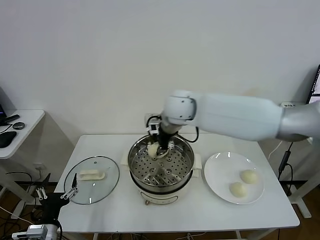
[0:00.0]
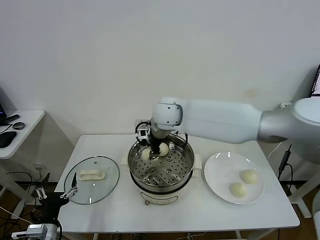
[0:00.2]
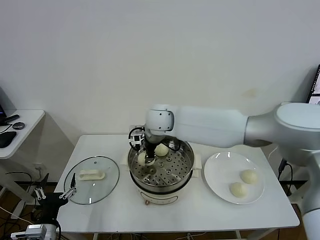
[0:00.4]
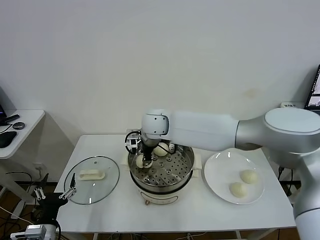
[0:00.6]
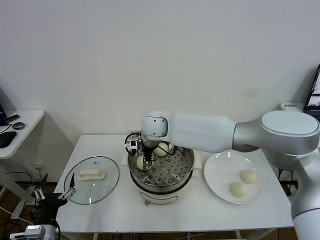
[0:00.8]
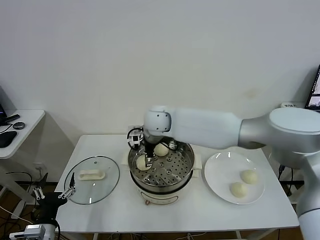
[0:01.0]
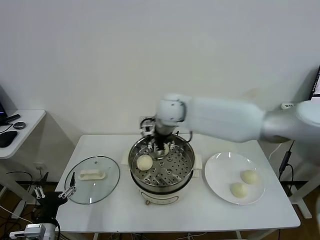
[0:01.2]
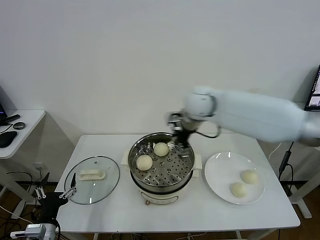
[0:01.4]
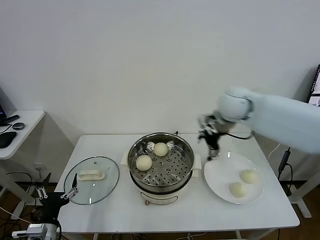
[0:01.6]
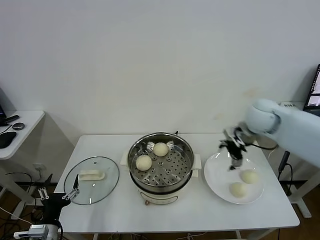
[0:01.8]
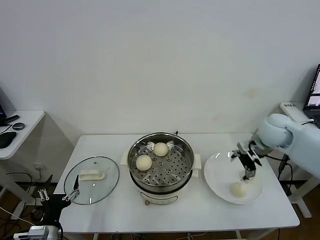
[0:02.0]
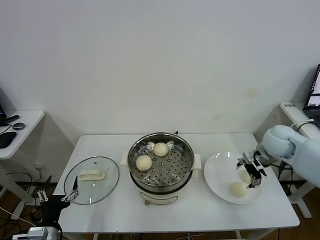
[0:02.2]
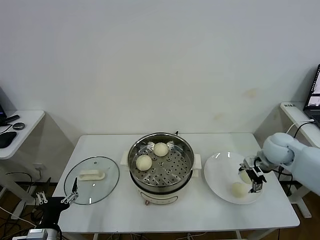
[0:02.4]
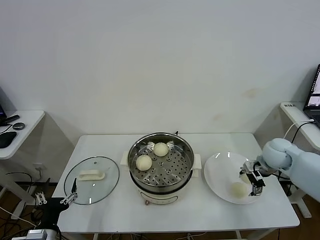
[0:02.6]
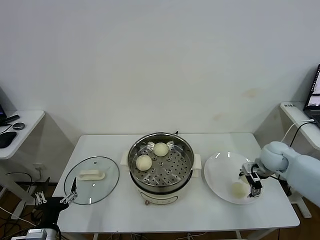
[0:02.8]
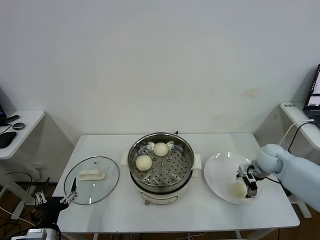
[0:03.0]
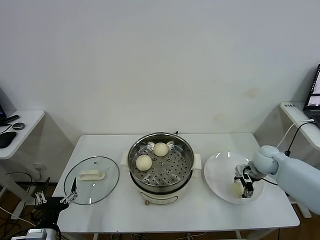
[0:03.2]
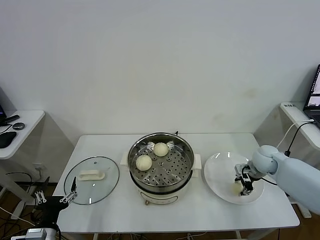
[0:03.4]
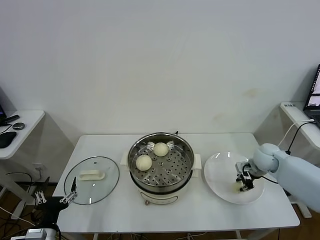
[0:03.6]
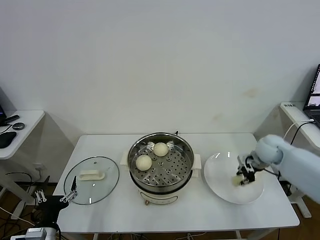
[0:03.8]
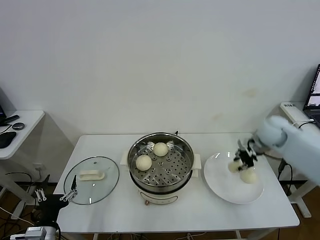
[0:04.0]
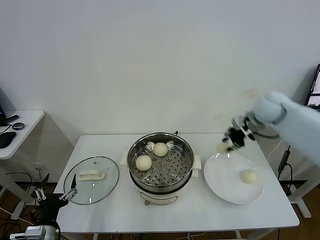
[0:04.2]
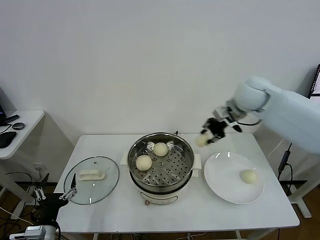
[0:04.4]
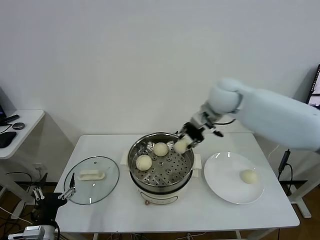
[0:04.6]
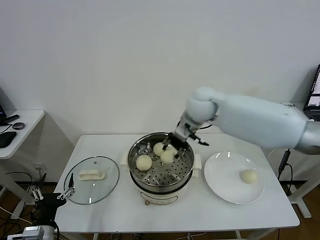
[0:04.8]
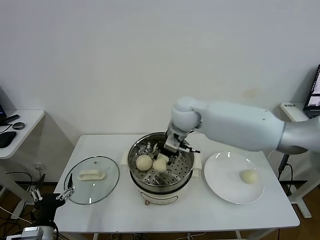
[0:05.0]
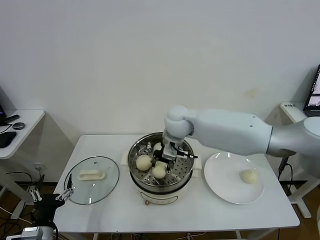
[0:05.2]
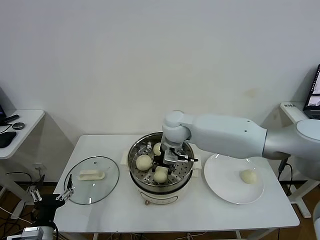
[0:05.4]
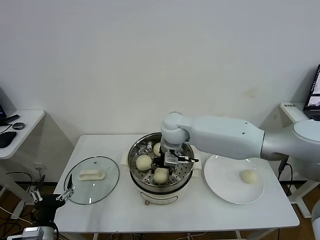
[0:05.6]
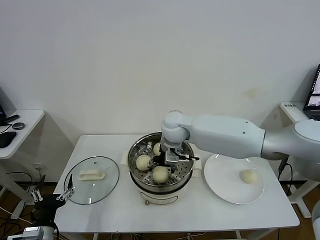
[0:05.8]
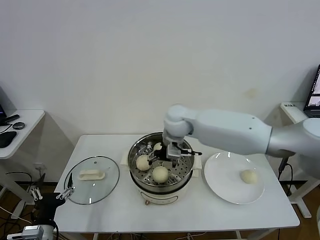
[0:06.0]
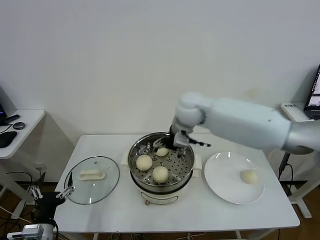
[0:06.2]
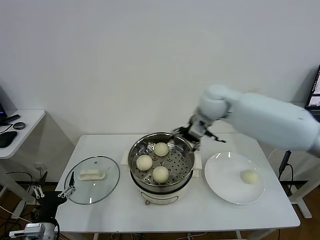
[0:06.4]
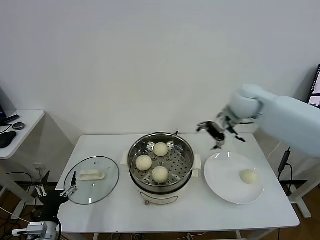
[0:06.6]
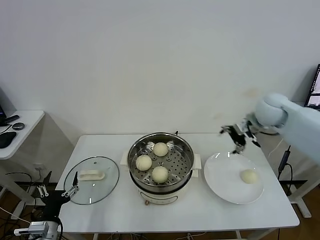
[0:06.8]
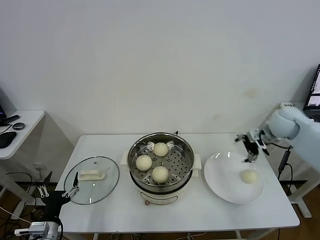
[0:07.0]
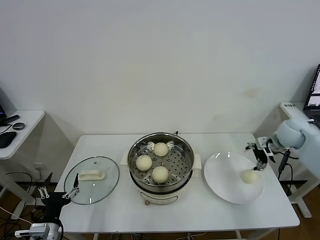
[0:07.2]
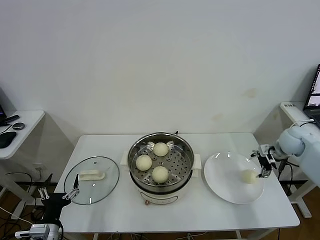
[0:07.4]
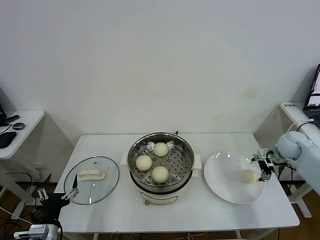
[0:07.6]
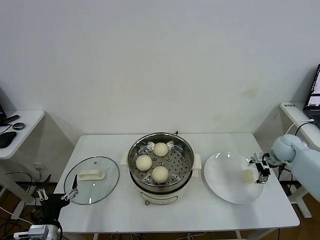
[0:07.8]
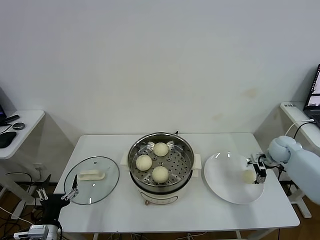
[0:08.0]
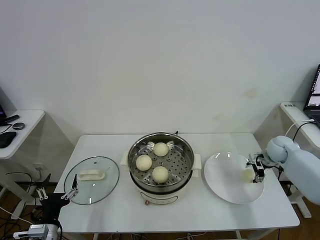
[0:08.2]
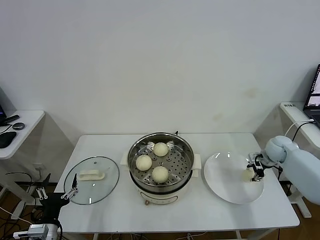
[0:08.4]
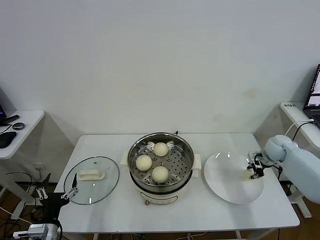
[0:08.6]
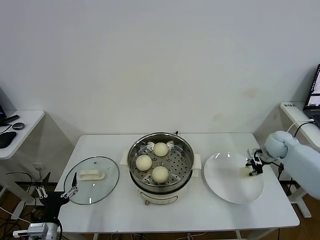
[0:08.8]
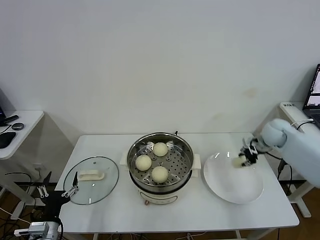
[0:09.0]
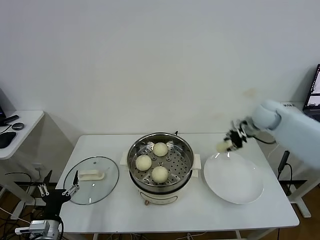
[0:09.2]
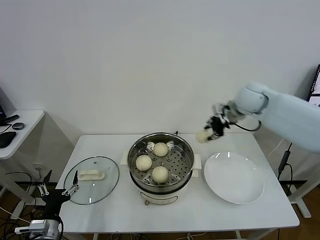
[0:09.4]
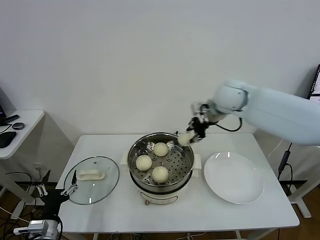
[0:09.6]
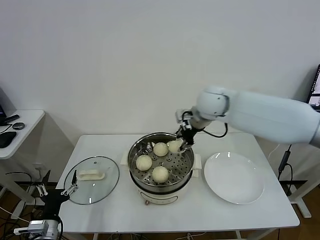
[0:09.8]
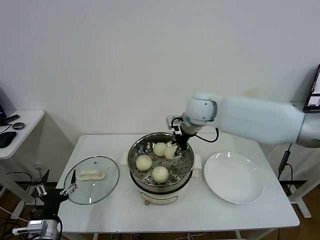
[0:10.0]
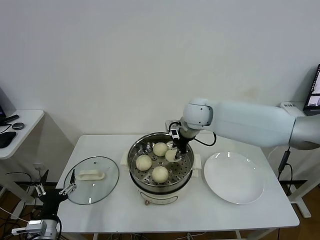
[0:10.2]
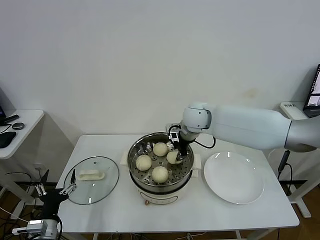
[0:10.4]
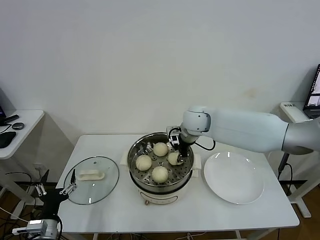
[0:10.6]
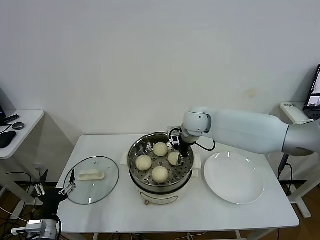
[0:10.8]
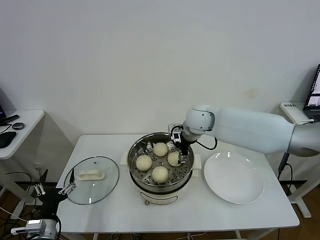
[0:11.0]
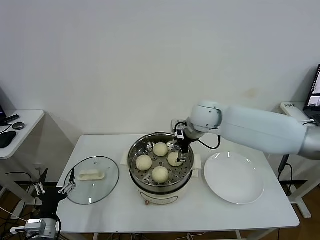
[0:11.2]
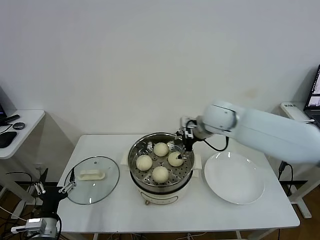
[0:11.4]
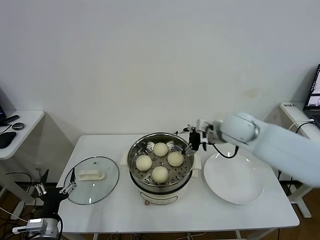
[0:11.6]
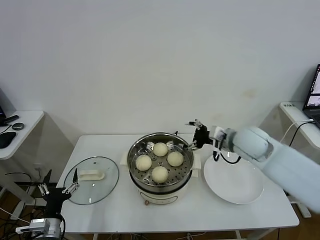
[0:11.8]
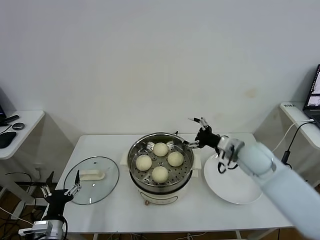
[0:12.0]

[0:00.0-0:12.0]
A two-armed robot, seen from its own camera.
Task of the whole recording: take steamed baozi put them in steamer.
Step, 0:01.2 to 0:03.4: Grasp the baozi in the plate with right gripper.
Step, 0:03.6 to 0:06.0: Place the baozi on the steamer with right gripper.
Step, 0:06.2 to 0:08.4: Grasp the baozi in the plate with right gripper.
Step, 0:08.6 to 0:11.0: Place the baozi on the steamer with right gripper.
0:00.0 to 0:01.6: The right gripper moves to the right, about 15 cm, and opens up.
0:01.6 to 0:03.0: The right gripper is displaced downward and to the right by approximately 25 cm.
0:03.0 to 0:04.4: The right gripper goes roughly 25 cm upward and to the left, and closes its fingers.
0:04.4 to 0:06.0: The right gripper travels to the left by some 20 cm, and opens.
0:06.0 to 0:07.6: The right gripper heads to the right, covering some 40 cm.
0:07.6 to 0:09.0: The right gripper travels to the left by about 5 cm, and closes.
0:09.0 to 0:10.4: The right gripper is displaced to the left by about 30 cm.
0:10.4 to 0:12.0: The right gripper shifts about 20 cm to the right and backward, and opens up.

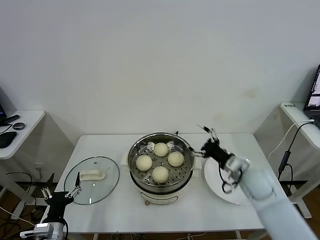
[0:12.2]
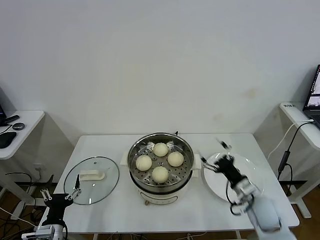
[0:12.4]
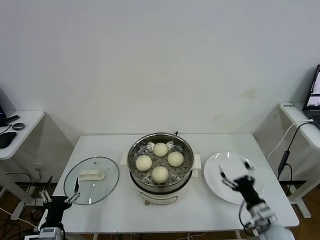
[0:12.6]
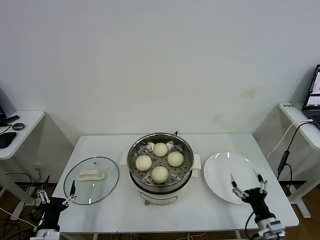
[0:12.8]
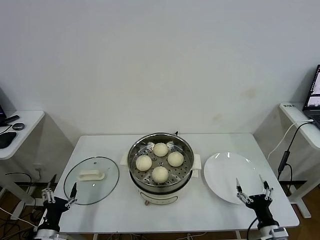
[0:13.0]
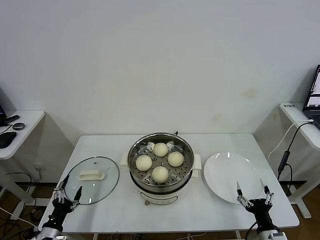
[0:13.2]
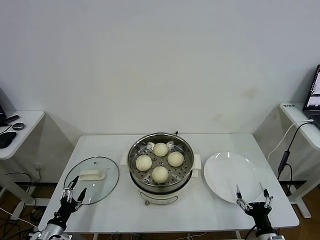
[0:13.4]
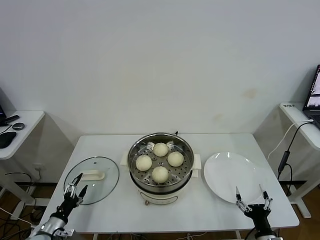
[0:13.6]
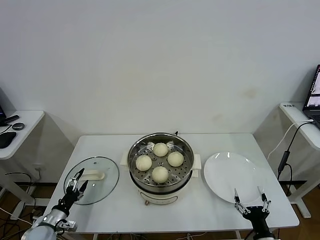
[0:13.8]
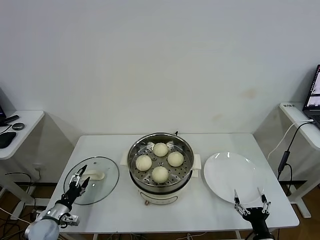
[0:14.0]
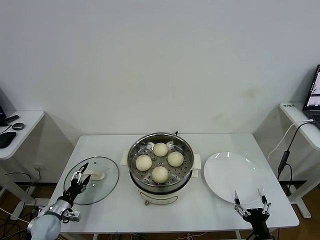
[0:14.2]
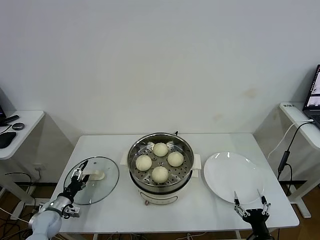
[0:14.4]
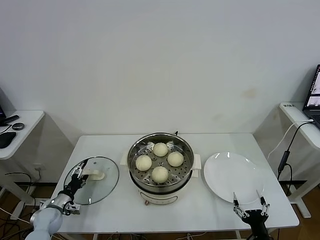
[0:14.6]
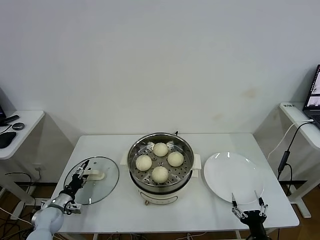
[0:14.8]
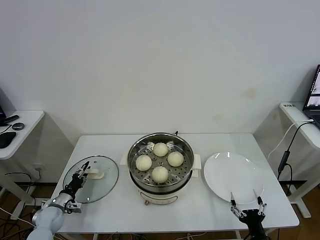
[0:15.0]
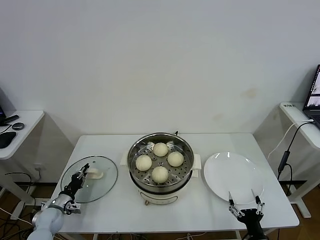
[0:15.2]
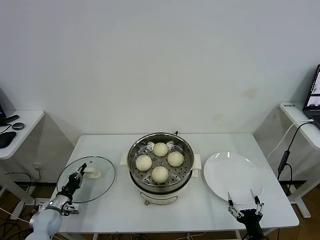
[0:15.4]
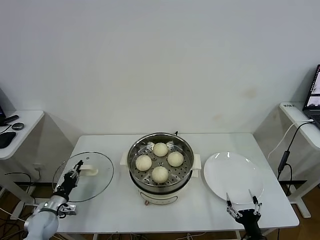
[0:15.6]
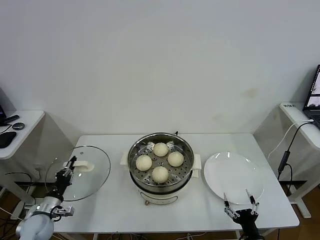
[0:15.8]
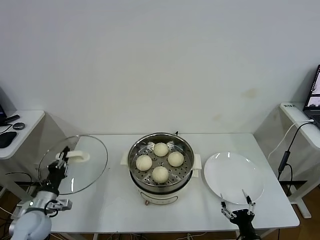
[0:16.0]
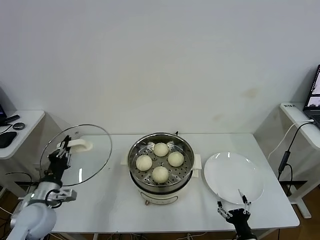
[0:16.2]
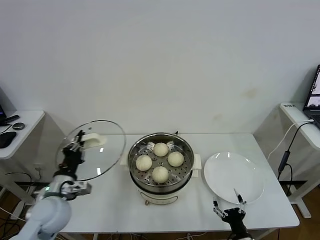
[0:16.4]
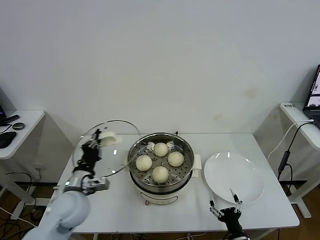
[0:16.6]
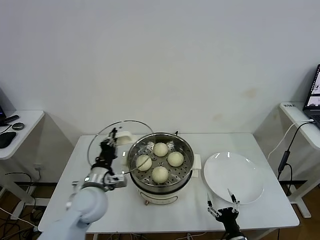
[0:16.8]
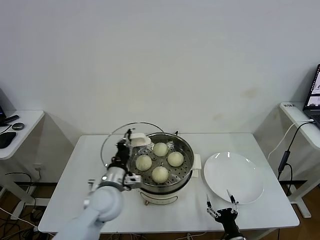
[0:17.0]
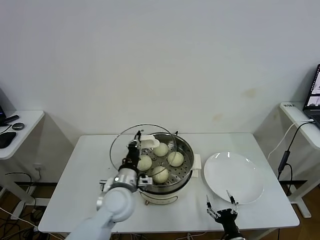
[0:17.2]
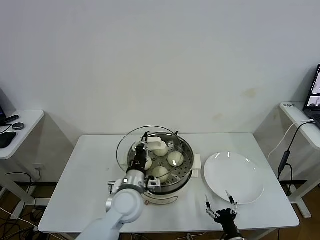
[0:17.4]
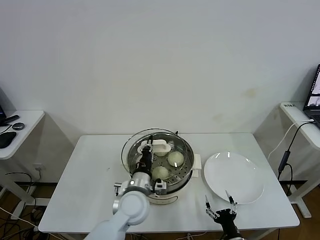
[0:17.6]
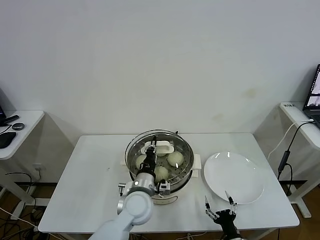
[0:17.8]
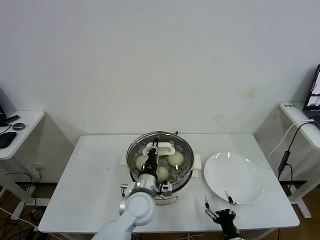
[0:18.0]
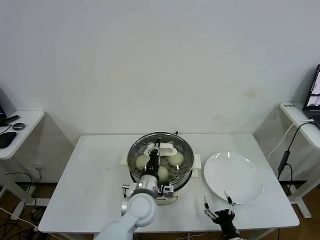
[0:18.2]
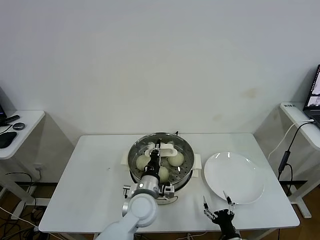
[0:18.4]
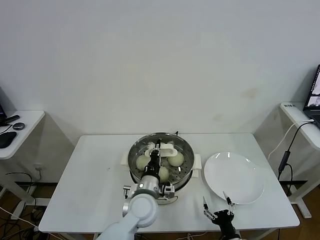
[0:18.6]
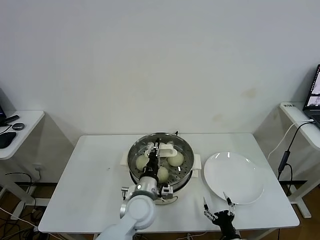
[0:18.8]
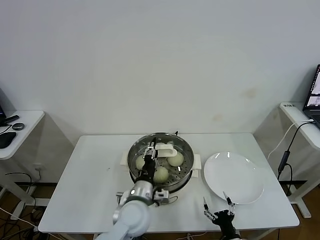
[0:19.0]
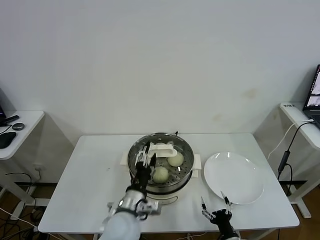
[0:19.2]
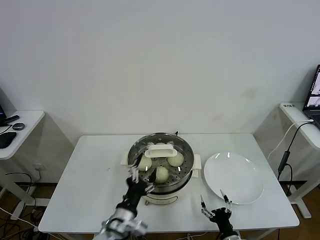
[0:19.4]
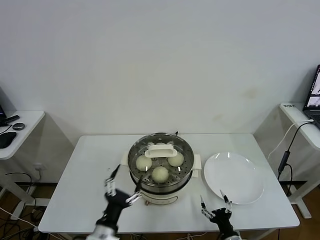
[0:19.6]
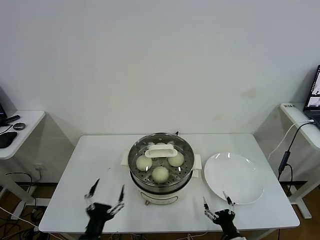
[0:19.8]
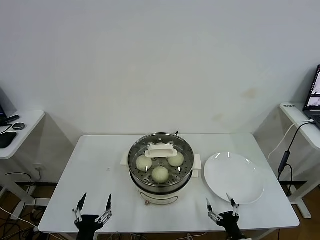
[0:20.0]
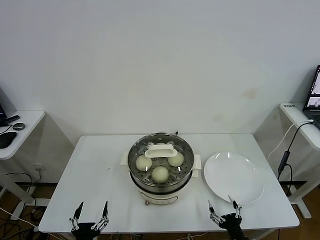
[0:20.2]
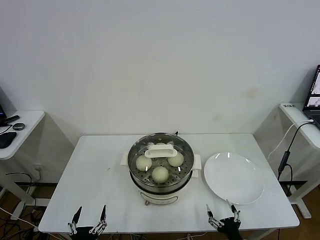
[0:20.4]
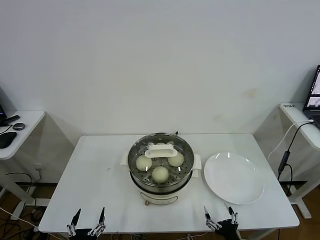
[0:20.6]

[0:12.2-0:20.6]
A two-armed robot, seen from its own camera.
Task of the whole recording: take steamed baozi put them in steamer.
Step, 0:12.2 to 0:15.4: Grasp the pot lid with left gripper.
Step, 0:15.6 to 0:19.4: Place the pot lid on the steamer with left gripper.
0:12.2 to 0:13.6: The left gripper goes approximately 10 cm to the left and downward; the right gripper heads backward and downward, covering about 30 cm.
0:13.6 to 0:15.0: The left gripper heads forward, covering roughly 10 cm, and closes its fingers.
0:15.0 to 0:16.4: The left gripper heads upward and to the right, covering approximately 25 cm, and closes up.
0:16.4 to 0:17.8: The left gripper shifts about 25 cm to the right.
0:17.8 to 0:19.2: The left gripper is displaced backward by approximately 5 cm, and opens its fingers.
0:19.2 to 0:20.6: The left gripper is displaced backward, to the left and downward by some 25 cm. The right gripper moves some 5 cm.
